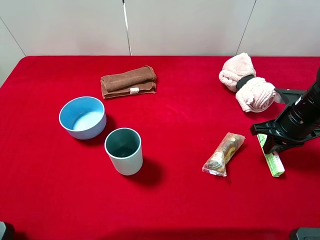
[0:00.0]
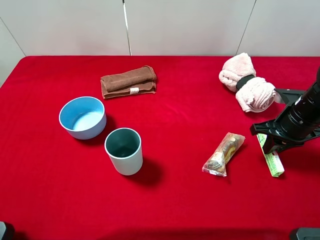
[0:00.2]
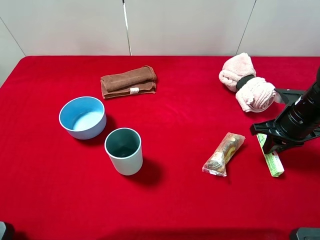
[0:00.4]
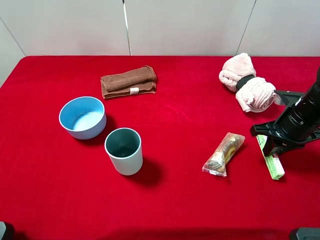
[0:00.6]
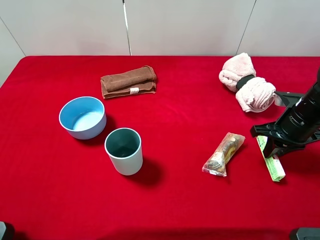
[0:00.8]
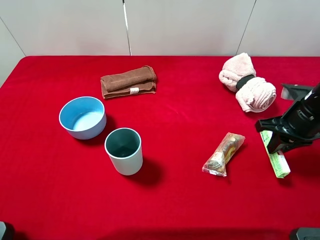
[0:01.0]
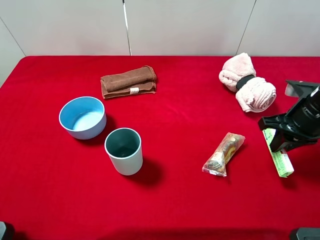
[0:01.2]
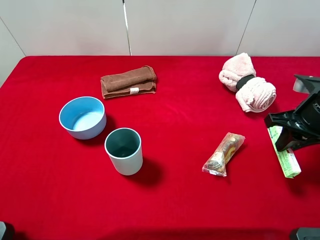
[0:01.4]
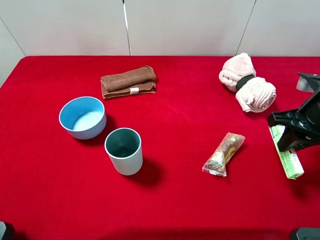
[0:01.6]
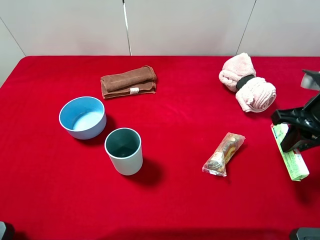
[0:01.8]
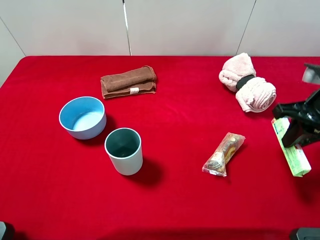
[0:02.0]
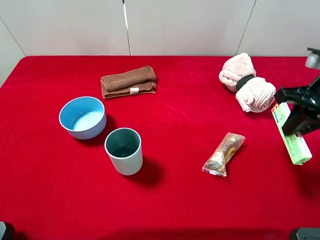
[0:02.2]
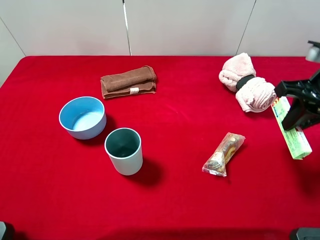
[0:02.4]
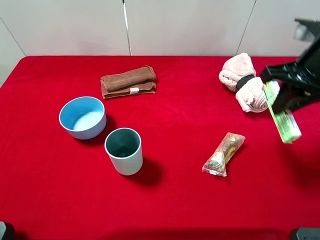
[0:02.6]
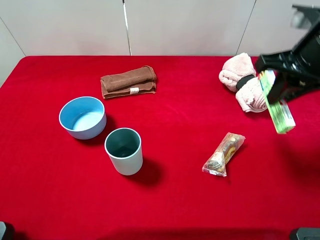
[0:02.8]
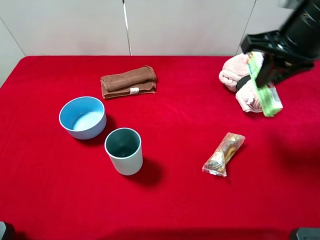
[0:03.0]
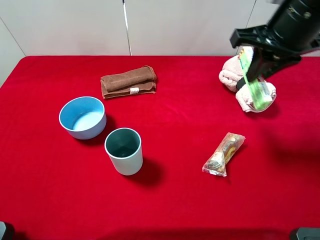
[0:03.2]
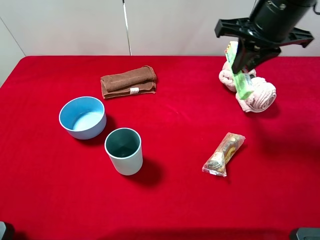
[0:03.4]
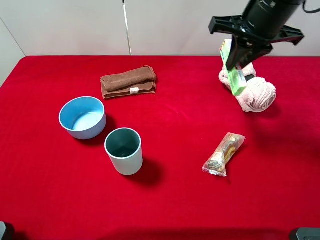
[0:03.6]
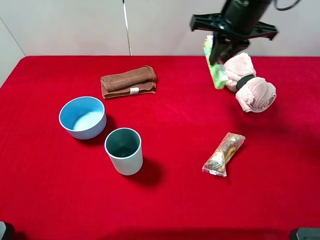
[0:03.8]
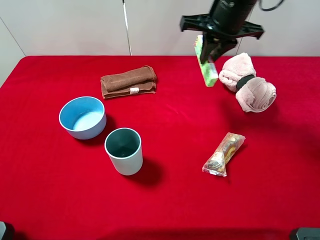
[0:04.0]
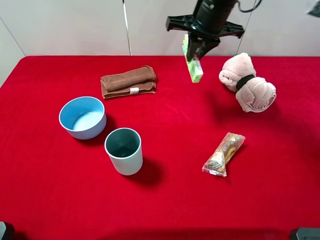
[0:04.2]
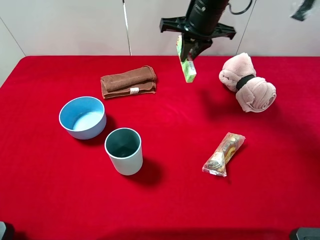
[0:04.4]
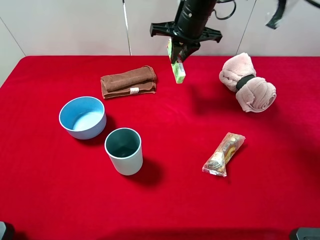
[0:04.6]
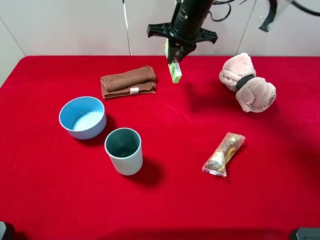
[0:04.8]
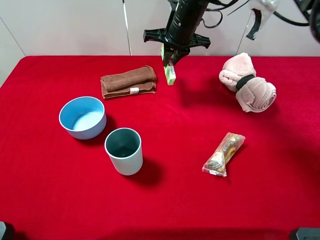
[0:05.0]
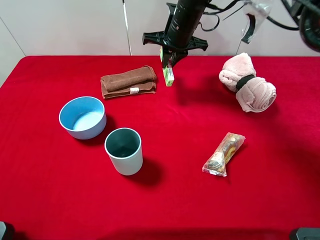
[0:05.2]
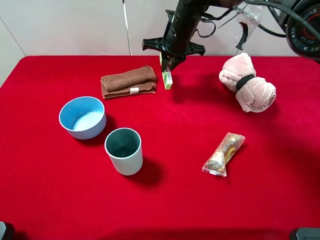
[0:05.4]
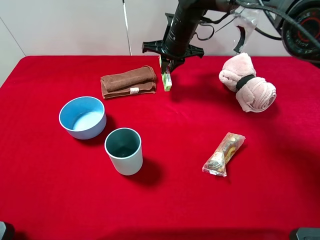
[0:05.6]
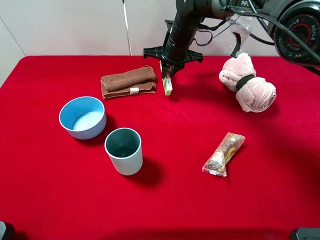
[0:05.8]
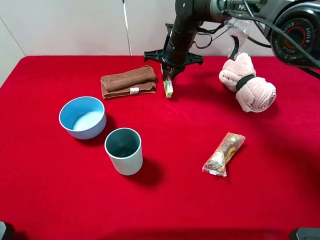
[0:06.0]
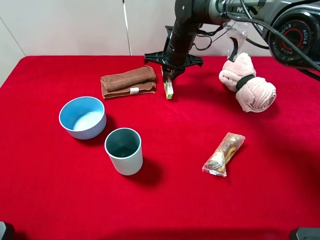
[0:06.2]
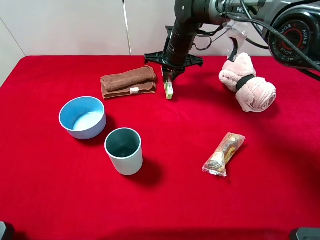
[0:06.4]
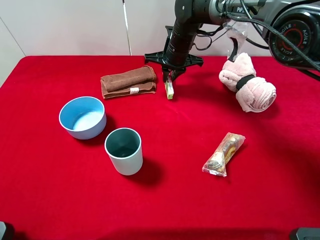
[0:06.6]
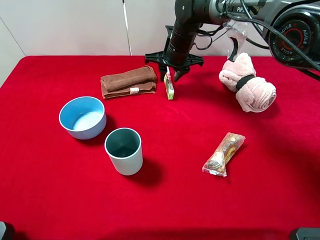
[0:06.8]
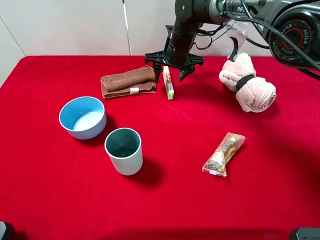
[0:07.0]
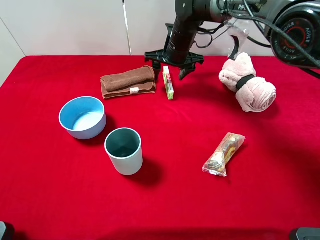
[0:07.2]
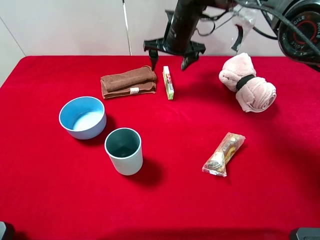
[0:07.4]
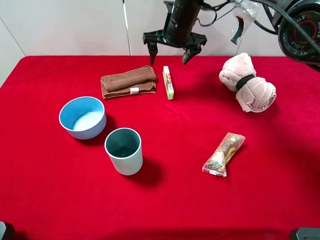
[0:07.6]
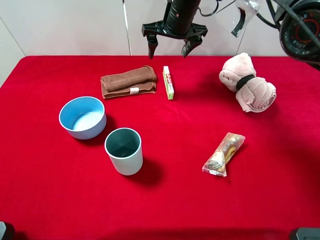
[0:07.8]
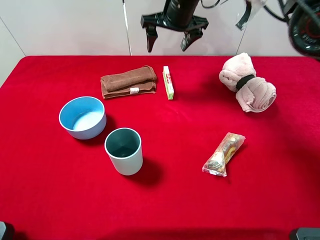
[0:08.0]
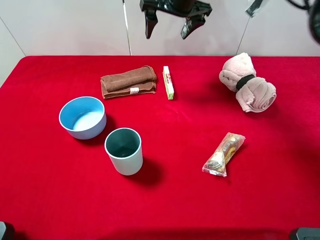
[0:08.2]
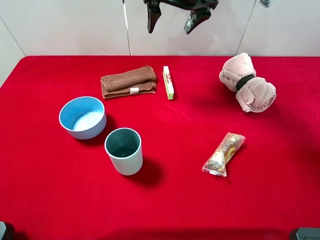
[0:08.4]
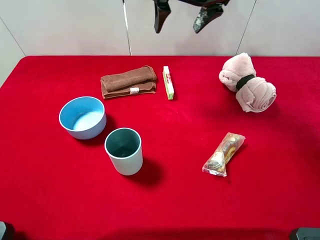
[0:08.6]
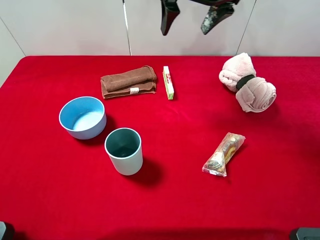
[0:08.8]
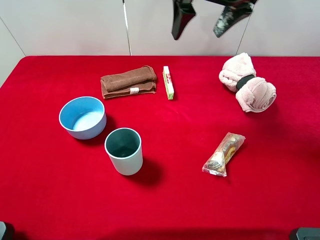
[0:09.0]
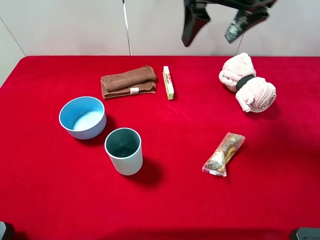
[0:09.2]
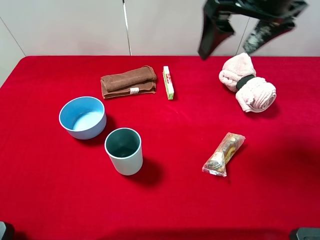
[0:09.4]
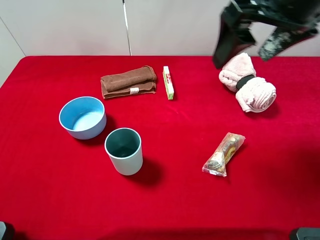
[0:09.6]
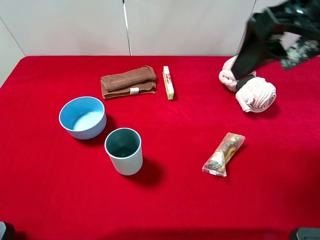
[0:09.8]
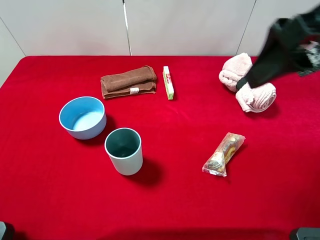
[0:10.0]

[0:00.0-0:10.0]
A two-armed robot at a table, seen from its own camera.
Task of the whole recording: the gripper move the object.
Step, 0:00.2 to 0:07.6: Place the fruit candy on the table with the right gripper.
0:00.0 to 0:01.4: The right gripper is displaced upward by approximately 5 cm.
0:01.4 to 0:02.8: The right gripper heads upward and to the left, covering some 10 cm.
0:02.8 to 0:04.2: The right gripper is displaced forward and to the left by roughly 20 cm.
0:04.2 to 0:05.8: The right gripper goes roughly 15 cm downward, forward and to the left.
0:05.8 to 0:07.2: The right gripper opens up.
0:07.2 to 0:08.6: The right gripper moves upward, roughly 15 cm.
0:08.6 to 0:10.0: The right gripper travels backward and to the right by some 25 cm.

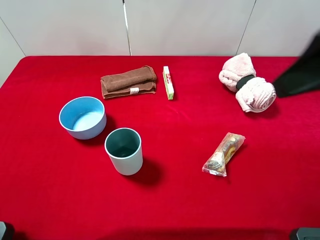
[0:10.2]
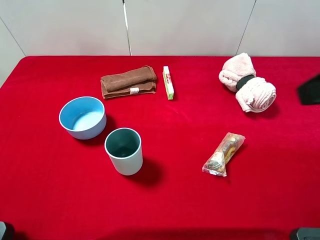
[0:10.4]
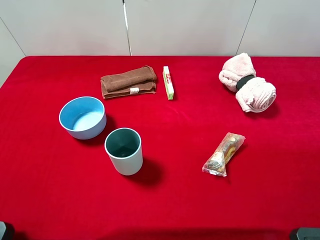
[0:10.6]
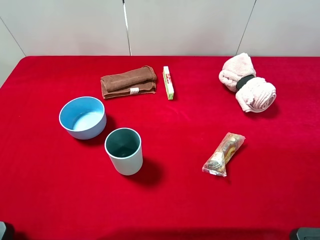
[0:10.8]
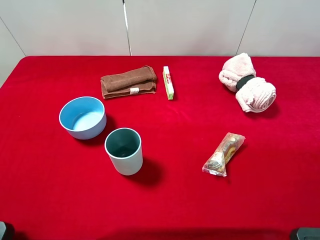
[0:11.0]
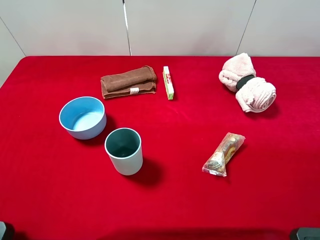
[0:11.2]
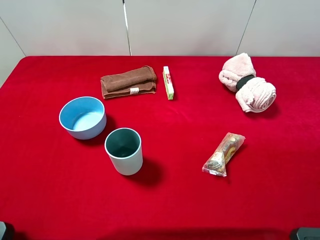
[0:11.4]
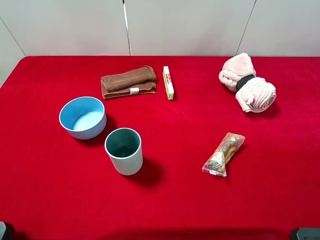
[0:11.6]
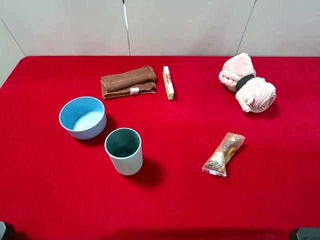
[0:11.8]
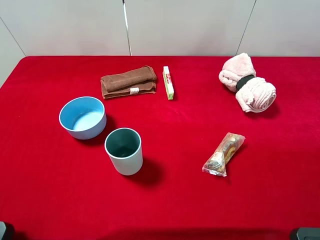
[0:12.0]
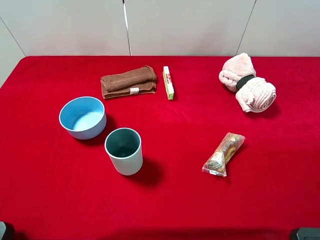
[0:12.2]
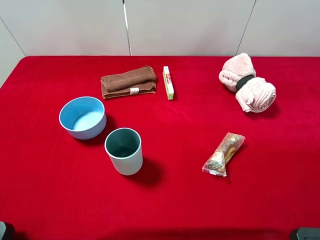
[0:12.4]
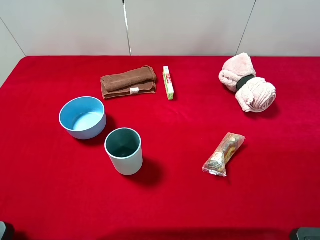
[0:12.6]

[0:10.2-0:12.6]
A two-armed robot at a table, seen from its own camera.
Task of the whole recording: the gripper move the object.
0:10.2 to 0:11.4: The right gripper shifts approximately 15 cm backward, to the right and downward.
0:11.4 to 0:12.6: The two grippers keep their place.
